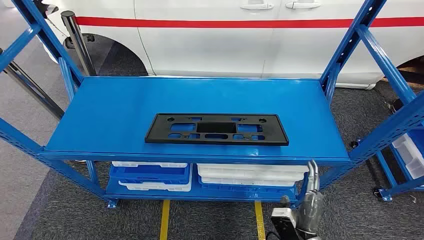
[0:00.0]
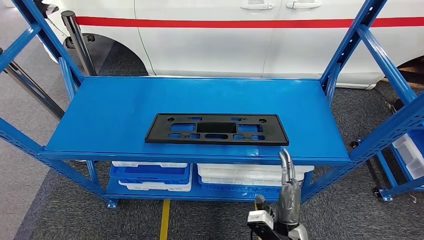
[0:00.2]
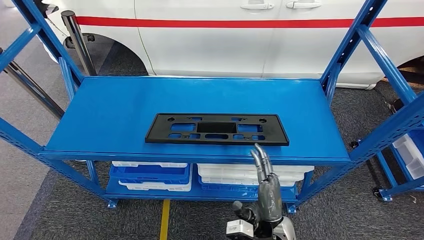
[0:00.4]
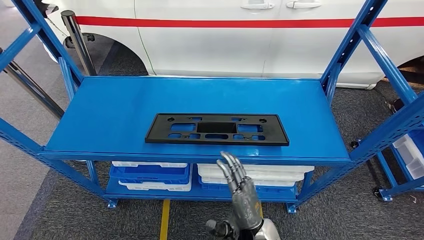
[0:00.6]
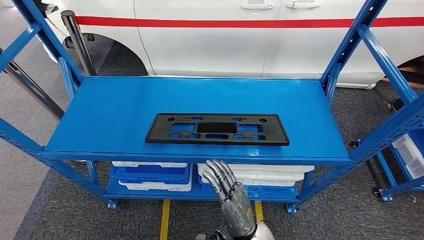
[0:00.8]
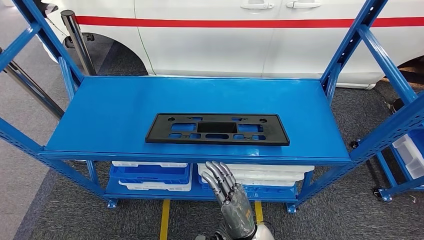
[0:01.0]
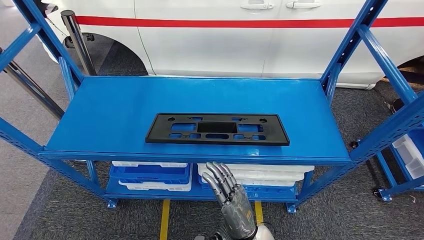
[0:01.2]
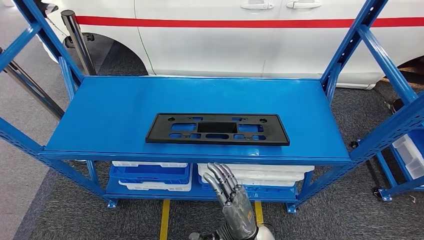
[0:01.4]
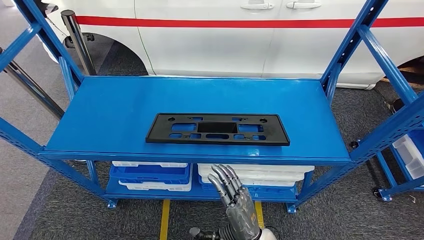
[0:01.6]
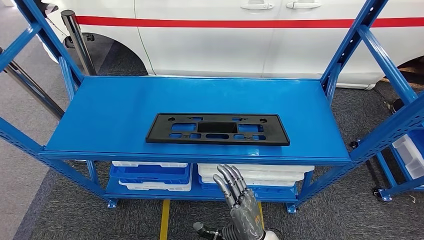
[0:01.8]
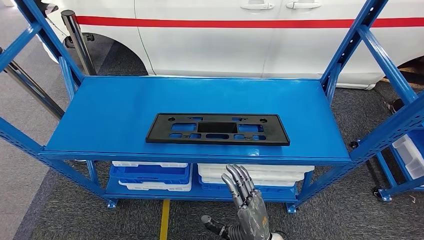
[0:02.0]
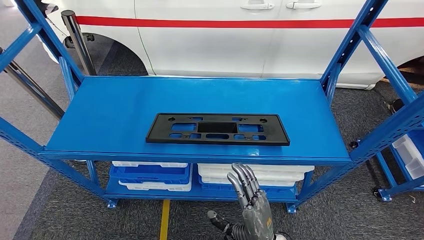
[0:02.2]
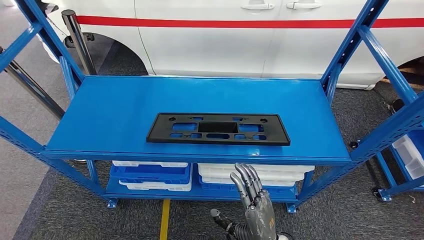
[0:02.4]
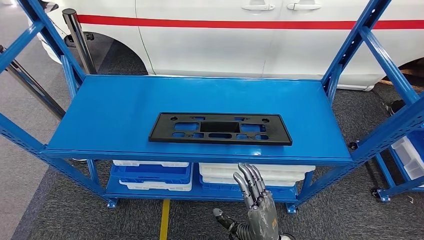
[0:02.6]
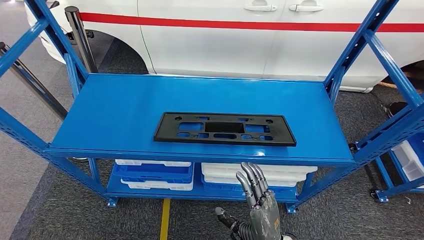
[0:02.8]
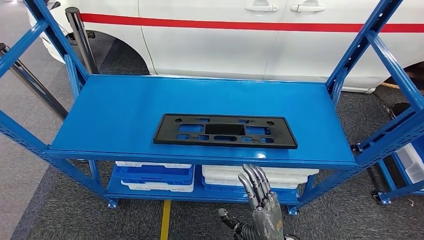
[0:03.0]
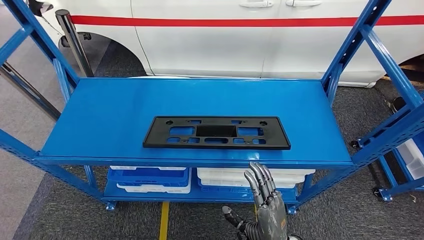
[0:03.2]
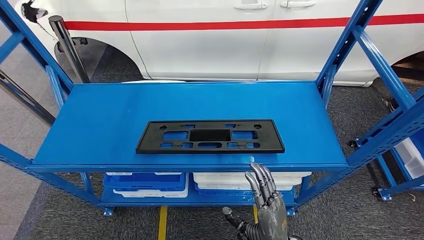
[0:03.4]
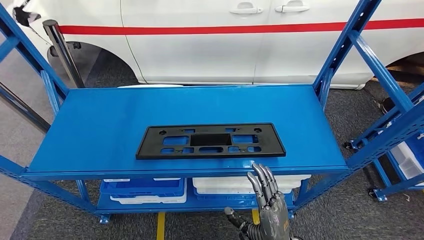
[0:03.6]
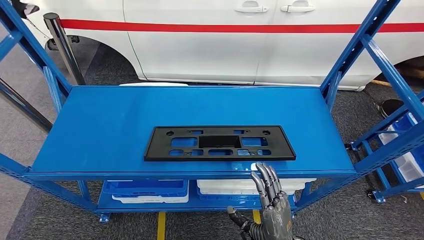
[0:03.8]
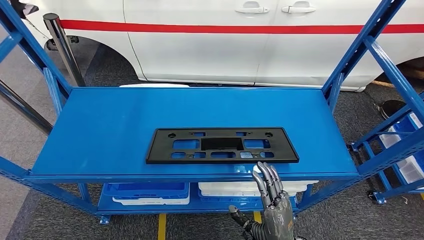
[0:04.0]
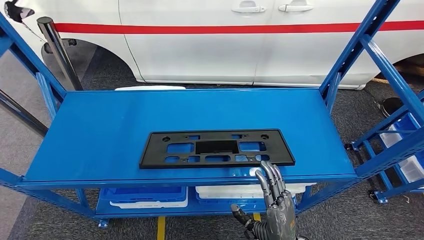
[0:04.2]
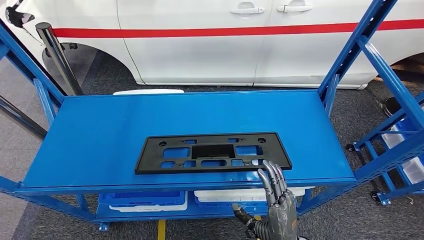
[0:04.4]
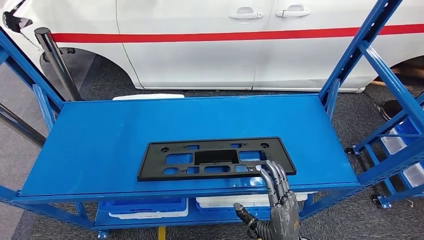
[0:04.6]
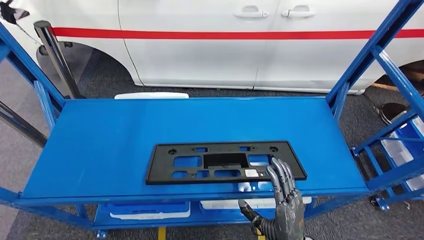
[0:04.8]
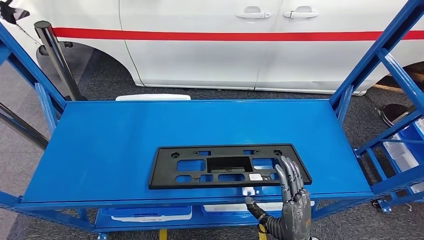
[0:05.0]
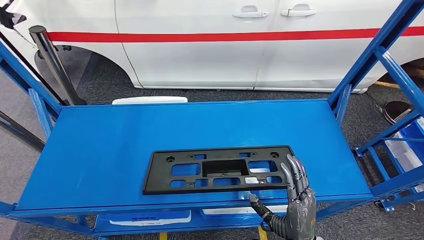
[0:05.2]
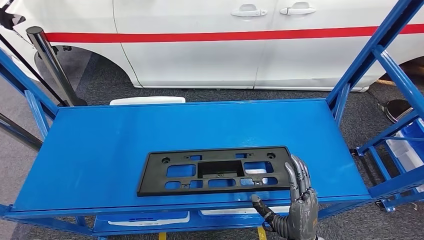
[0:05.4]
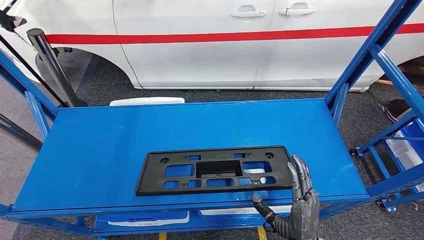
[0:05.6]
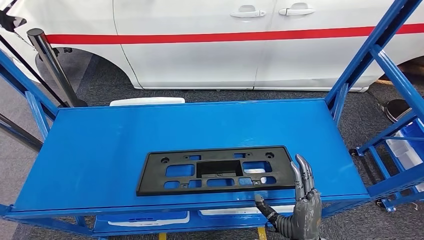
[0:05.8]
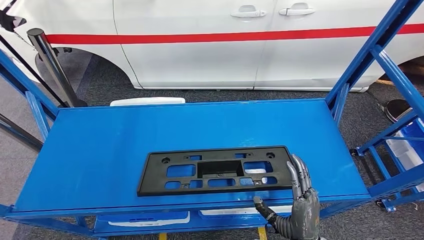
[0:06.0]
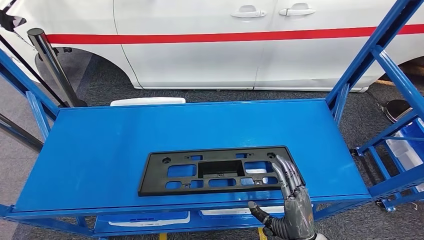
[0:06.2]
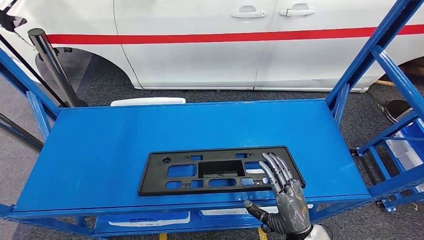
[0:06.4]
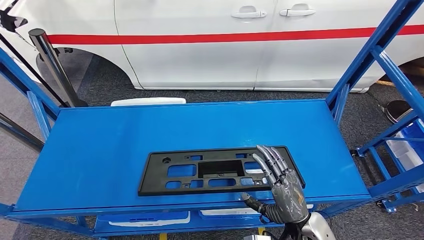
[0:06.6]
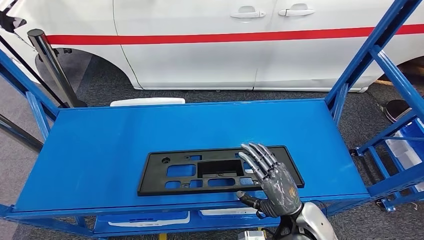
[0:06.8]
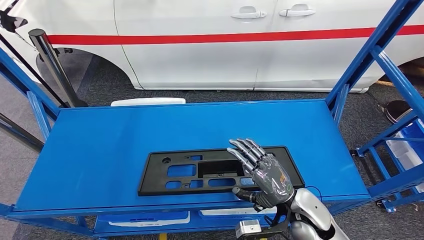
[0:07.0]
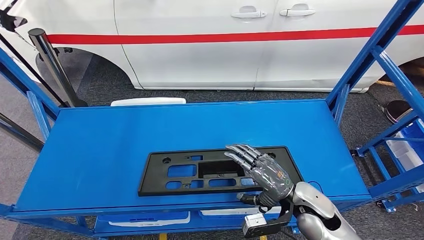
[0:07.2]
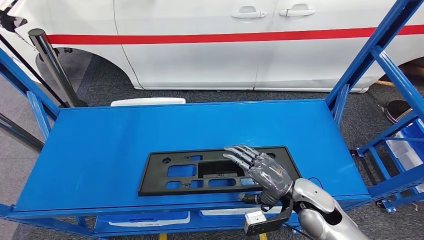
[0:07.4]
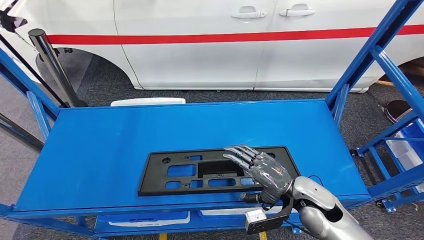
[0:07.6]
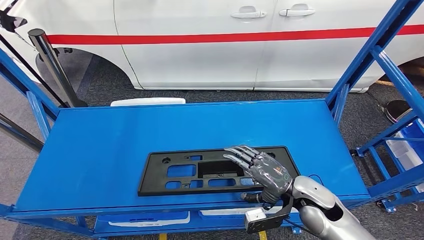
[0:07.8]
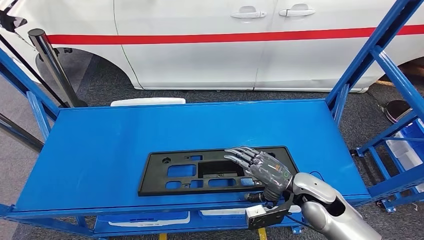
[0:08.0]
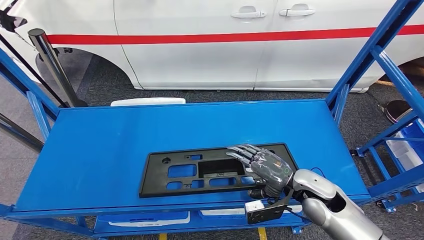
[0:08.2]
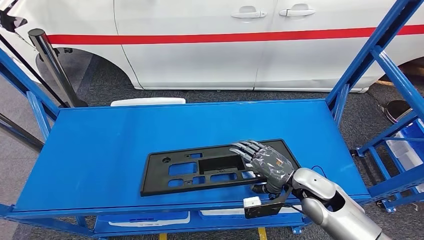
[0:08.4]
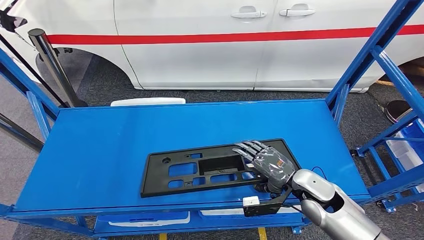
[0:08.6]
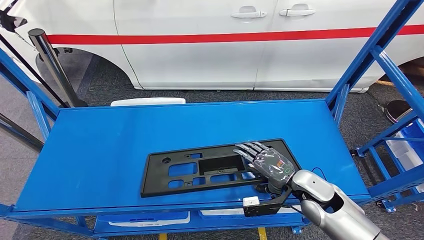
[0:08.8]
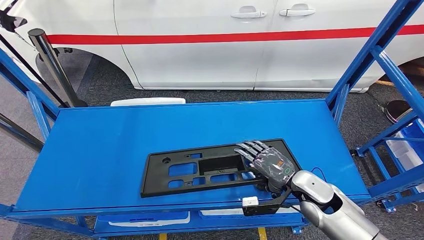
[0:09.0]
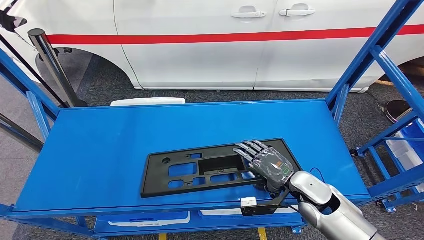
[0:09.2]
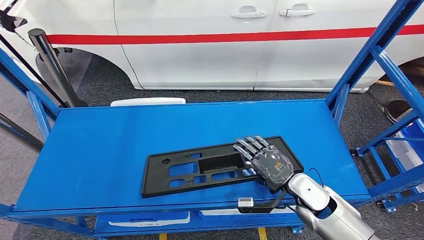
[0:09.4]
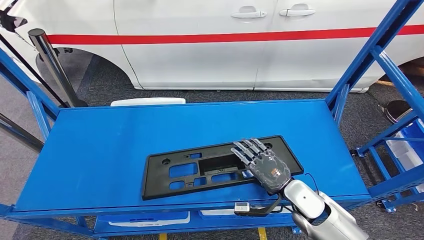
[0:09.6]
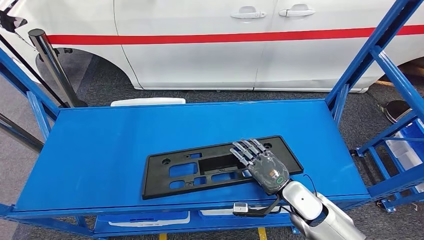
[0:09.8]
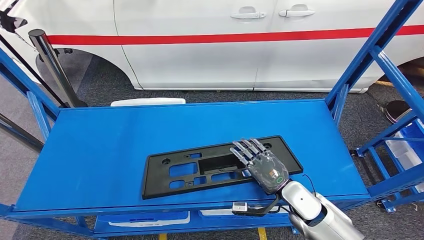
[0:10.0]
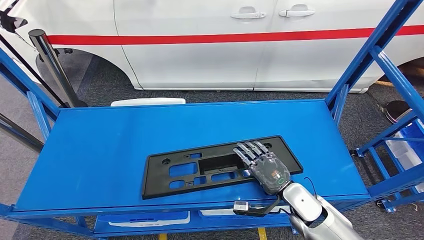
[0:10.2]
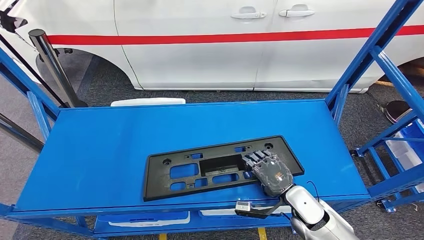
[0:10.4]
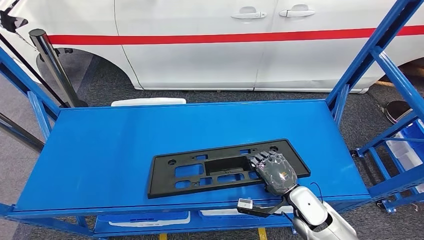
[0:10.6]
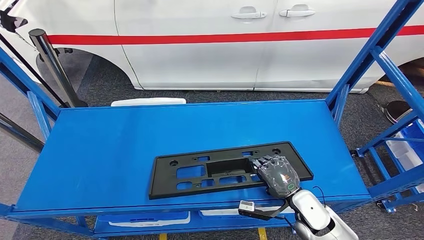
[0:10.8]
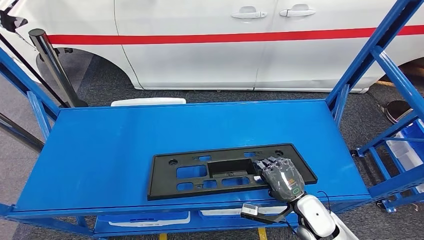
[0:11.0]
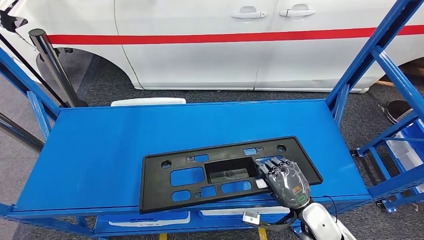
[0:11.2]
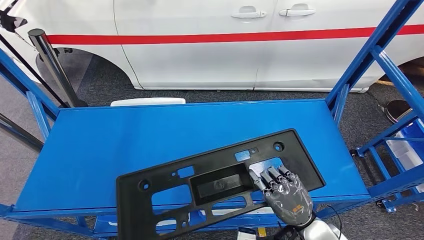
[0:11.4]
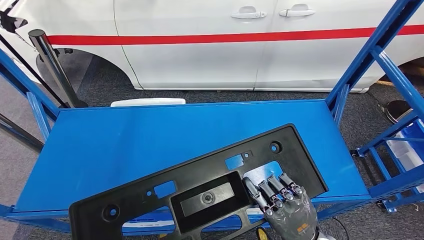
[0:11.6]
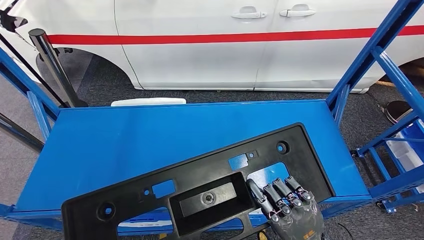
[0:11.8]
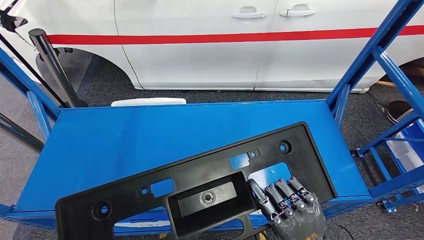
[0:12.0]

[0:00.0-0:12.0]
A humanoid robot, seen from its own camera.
0:06.0 to 0:07.6: The right hand heads forward, covering approximately 10 cm.
0:09.0 to 0:10.4: The right hand ends up approximately 5 cm from where it was.
0:10.4 to 0:12.0: The right hand moves backward and upward, approximately 15 cm.

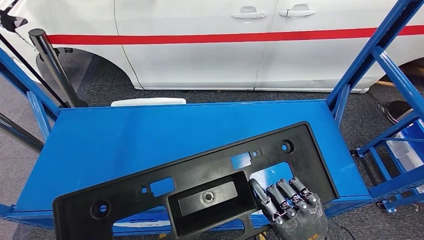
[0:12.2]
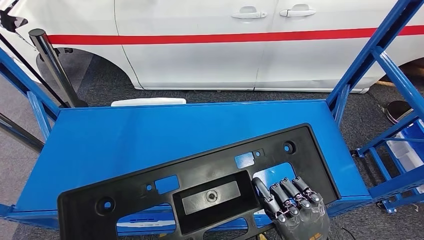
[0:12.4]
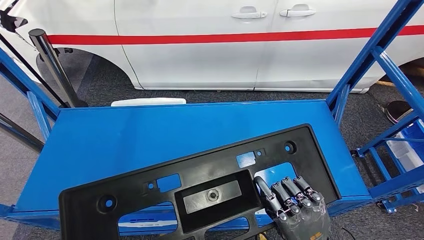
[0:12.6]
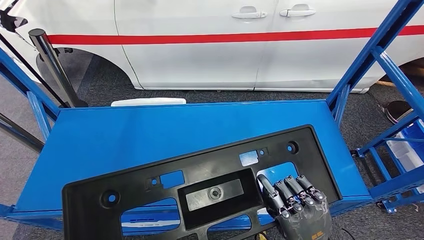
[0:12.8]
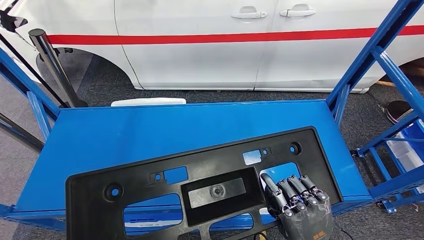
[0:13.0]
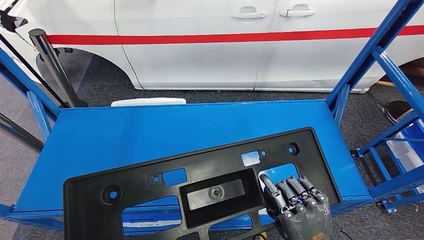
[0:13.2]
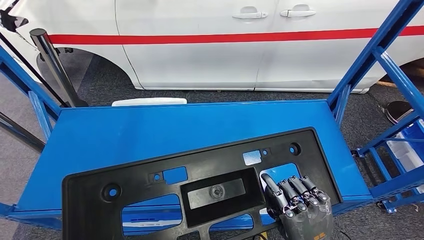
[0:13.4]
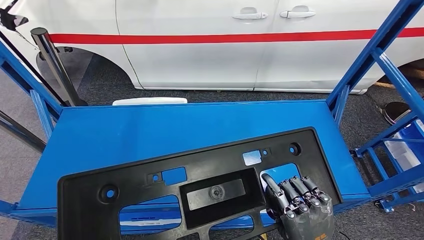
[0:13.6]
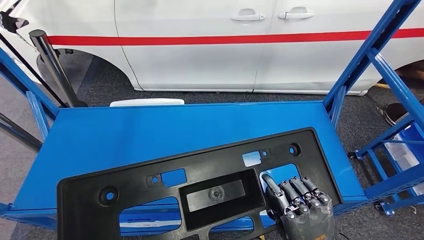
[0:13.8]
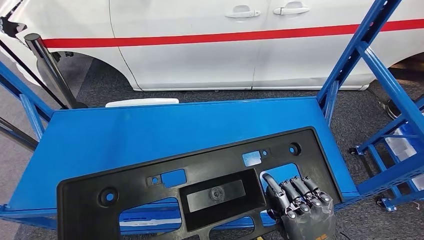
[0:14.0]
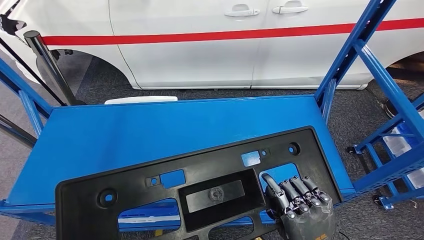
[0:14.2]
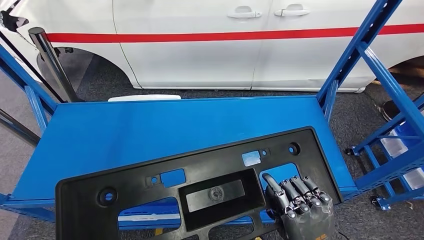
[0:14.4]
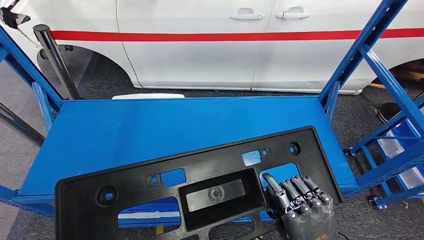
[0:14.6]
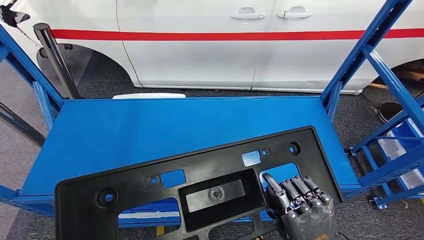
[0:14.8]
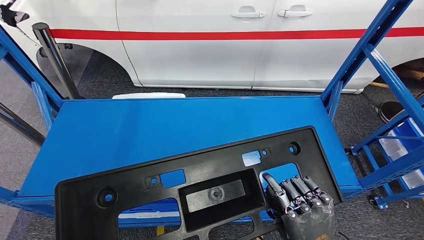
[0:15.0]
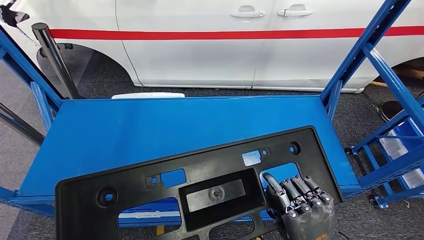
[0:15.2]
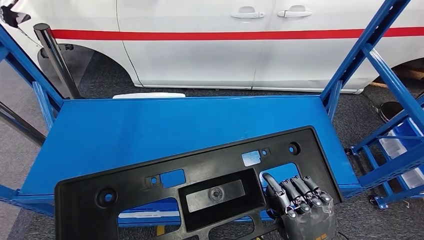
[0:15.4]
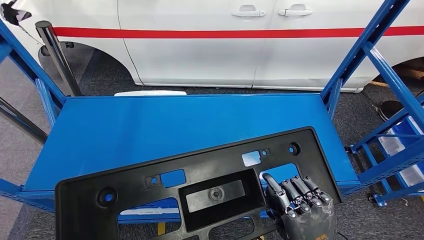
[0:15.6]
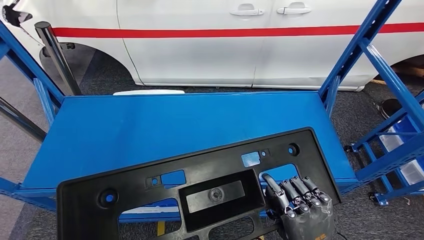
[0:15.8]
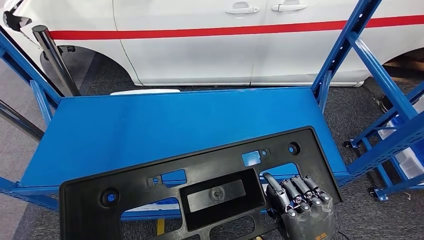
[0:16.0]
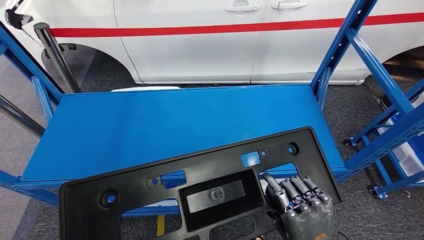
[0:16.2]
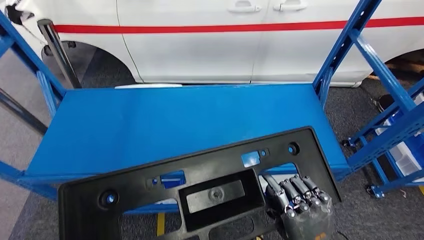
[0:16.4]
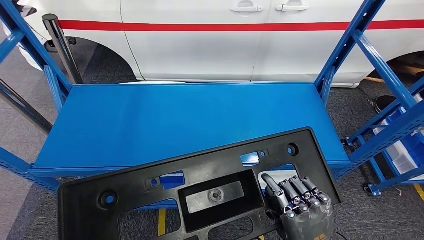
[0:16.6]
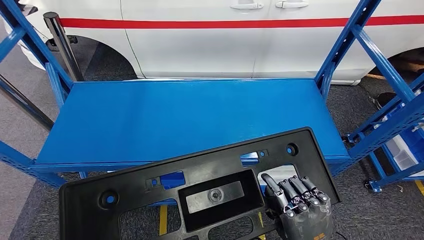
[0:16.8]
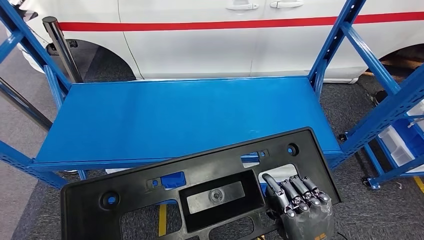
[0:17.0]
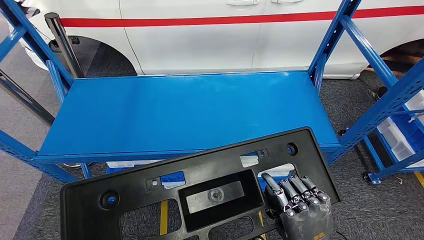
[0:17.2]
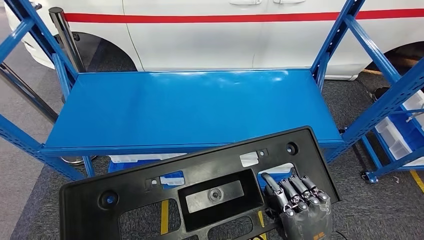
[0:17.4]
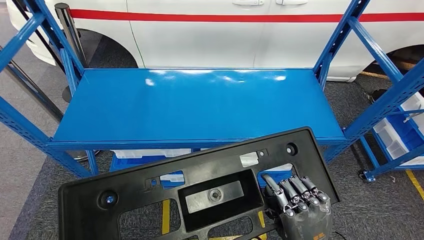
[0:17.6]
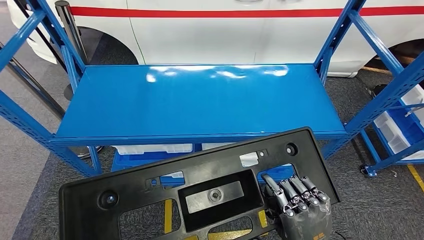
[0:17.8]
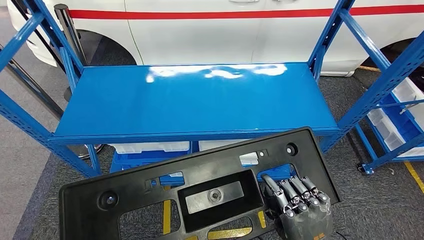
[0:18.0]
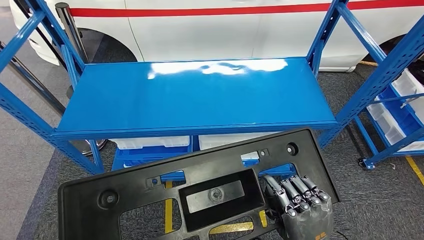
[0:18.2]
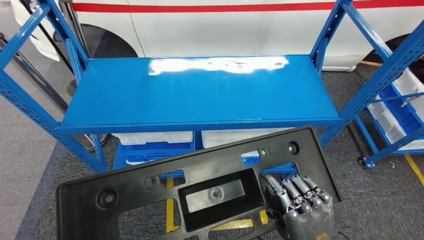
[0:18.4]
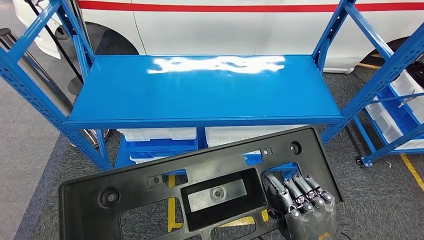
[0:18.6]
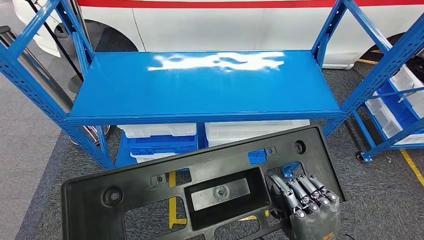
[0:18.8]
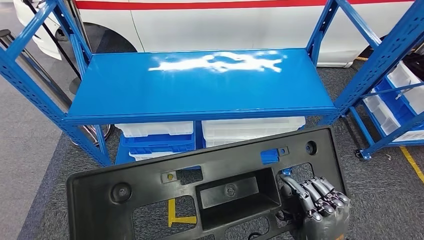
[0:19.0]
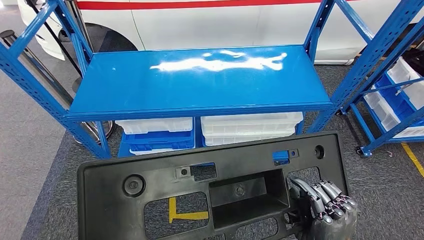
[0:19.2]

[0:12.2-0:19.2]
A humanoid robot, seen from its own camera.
0:12.2 to 0:13.6: The hands stay close to where they were, moving slightly.
